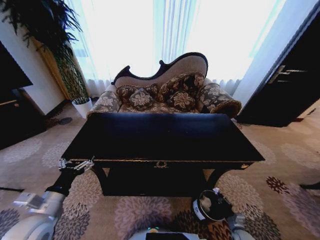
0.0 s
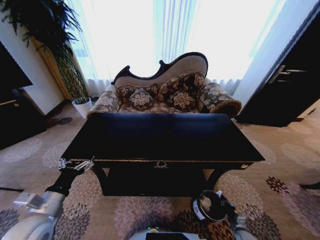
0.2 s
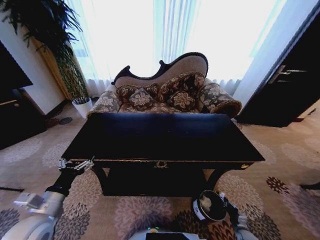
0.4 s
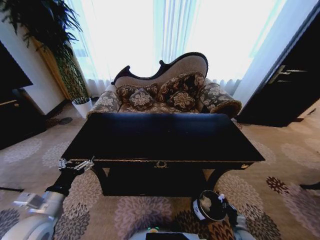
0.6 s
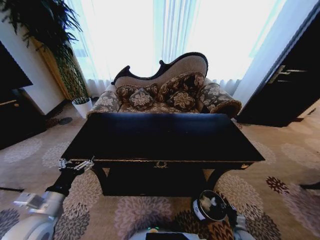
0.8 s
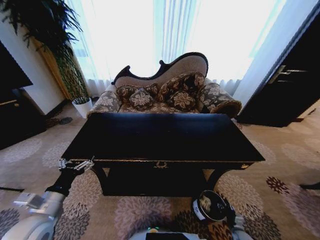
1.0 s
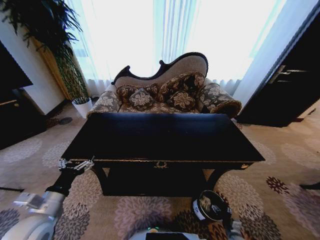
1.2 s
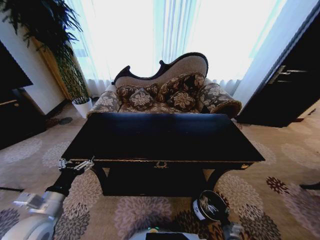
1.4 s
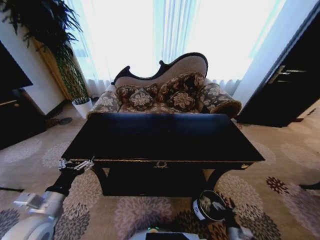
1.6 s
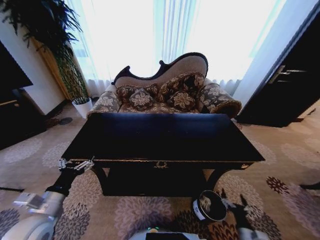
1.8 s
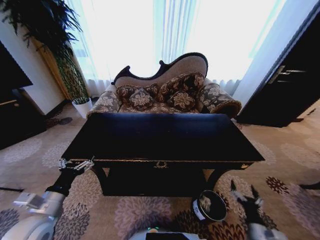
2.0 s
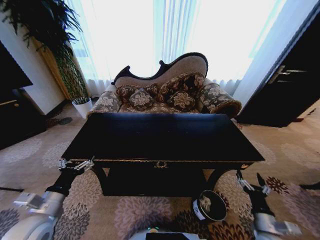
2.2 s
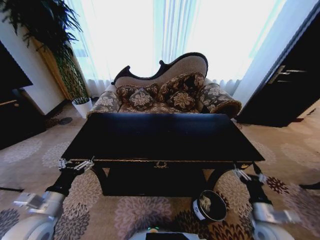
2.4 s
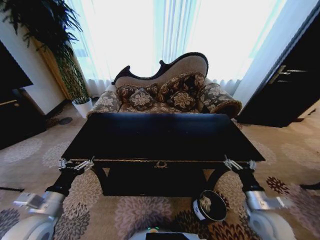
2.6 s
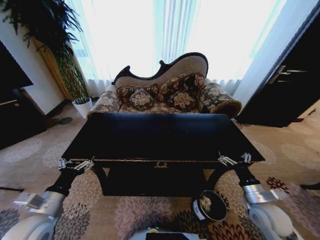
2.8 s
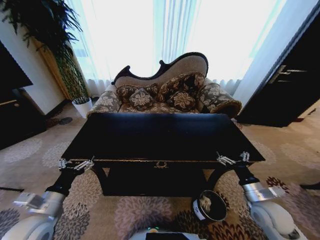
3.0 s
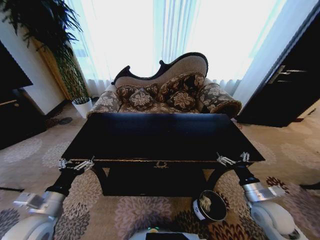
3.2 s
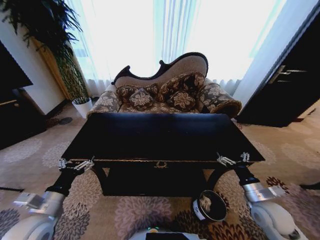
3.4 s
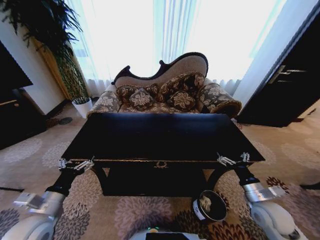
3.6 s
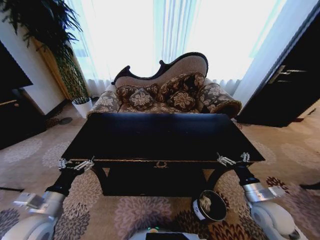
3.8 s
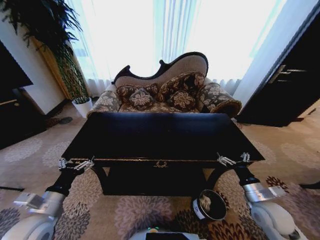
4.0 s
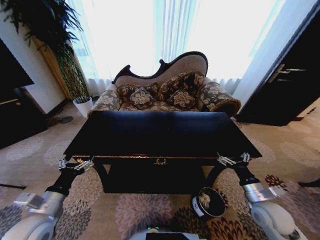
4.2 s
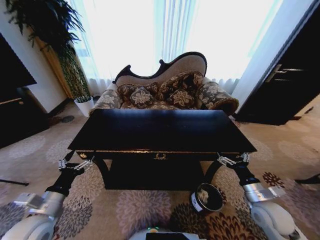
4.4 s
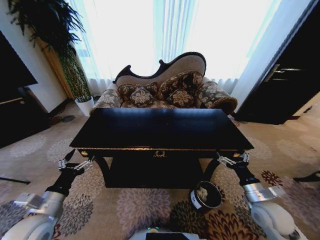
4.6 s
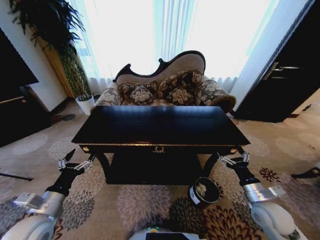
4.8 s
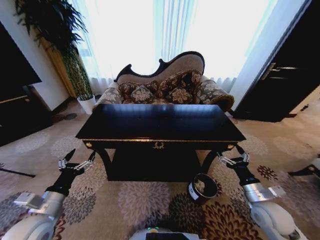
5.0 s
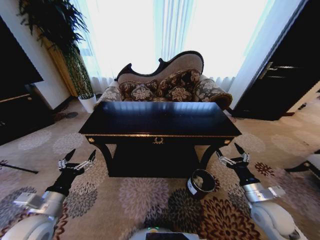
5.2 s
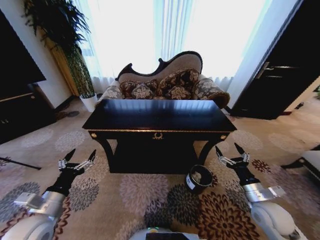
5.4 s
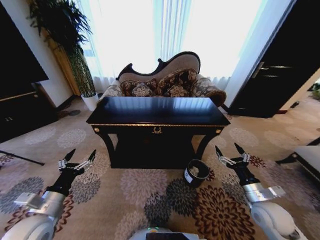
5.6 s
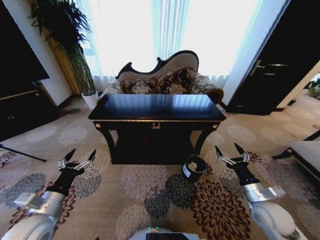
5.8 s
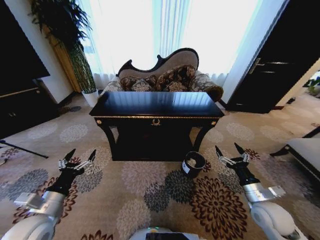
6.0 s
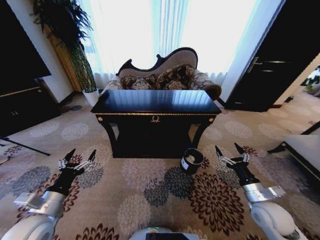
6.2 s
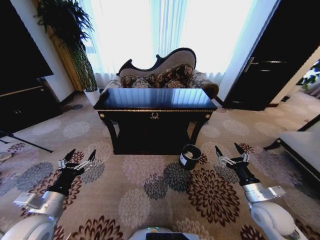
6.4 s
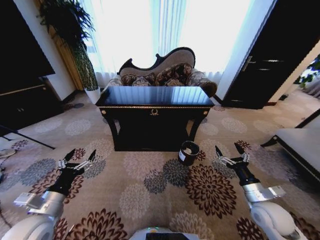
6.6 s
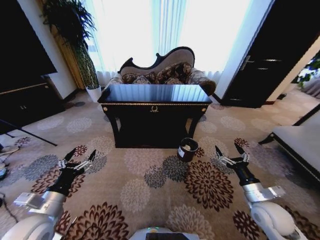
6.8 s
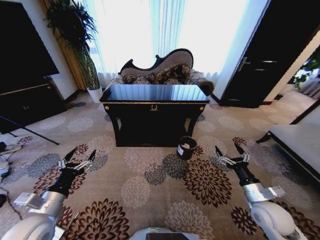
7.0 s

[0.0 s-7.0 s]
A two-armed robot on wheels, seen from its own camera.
Task of the whole recording: Move to the front of the table and place the trash on the table into the trash bin.
0.0 to 1.4 s: The right gripper moves some 5 cm, and opens.
1.4 to 2.8 s: The right gripper goes roughly 35 cm upward.
2.8 to 4.2 s: Both grippers stay put.
